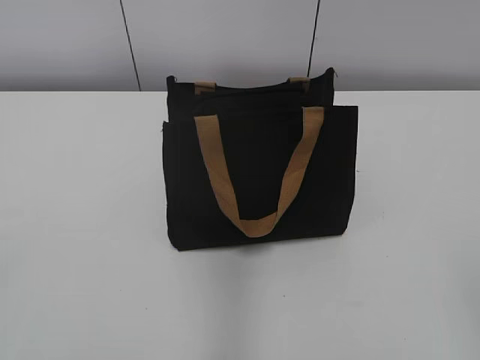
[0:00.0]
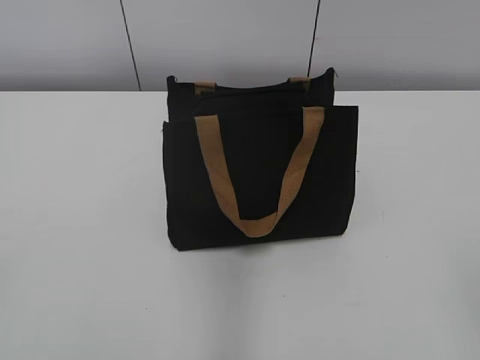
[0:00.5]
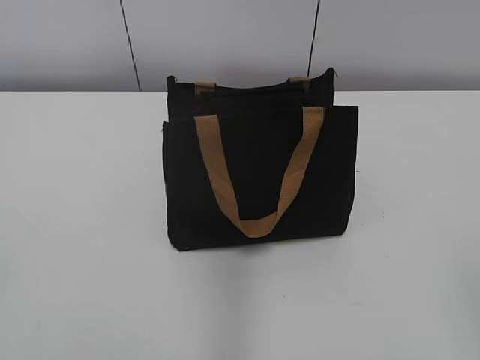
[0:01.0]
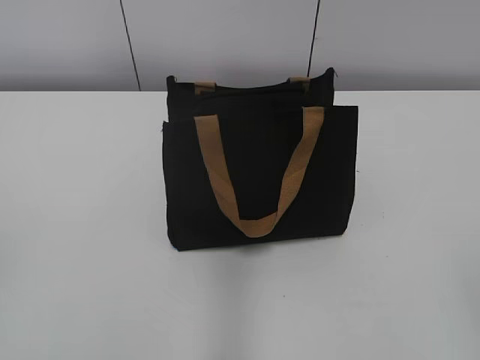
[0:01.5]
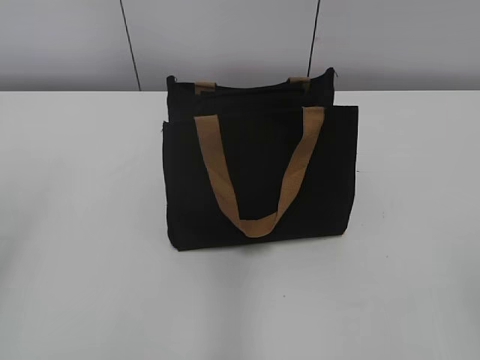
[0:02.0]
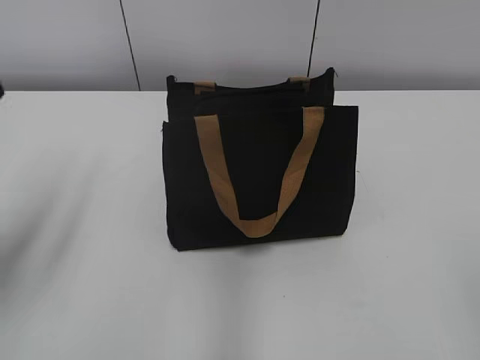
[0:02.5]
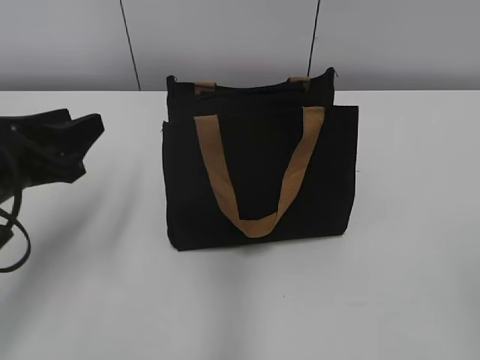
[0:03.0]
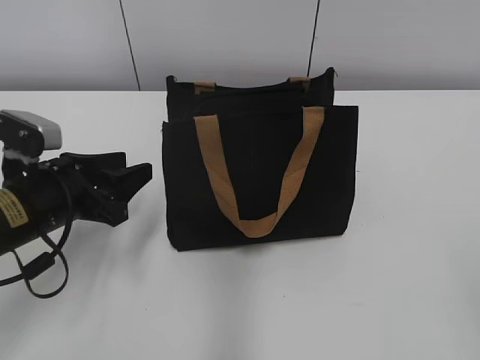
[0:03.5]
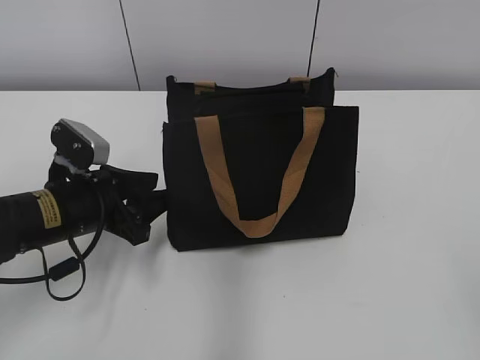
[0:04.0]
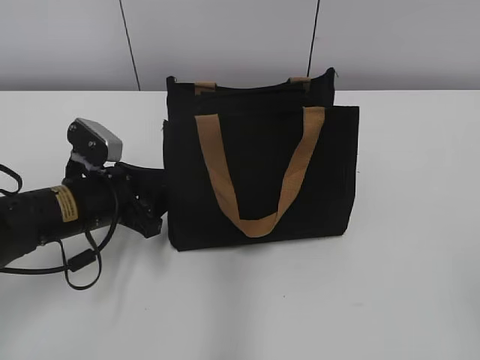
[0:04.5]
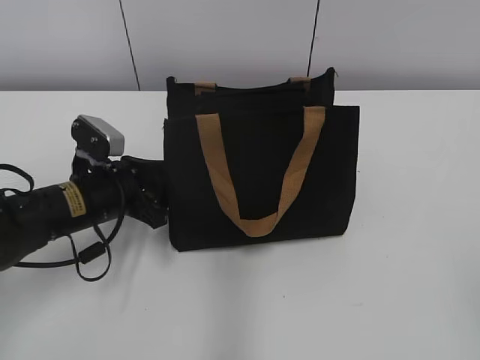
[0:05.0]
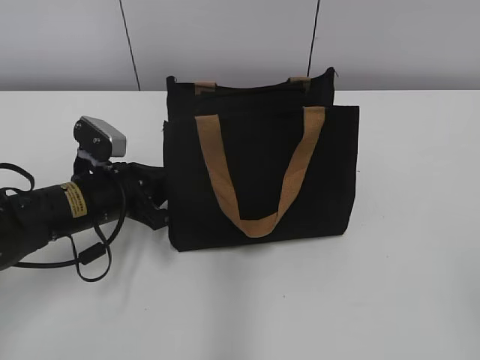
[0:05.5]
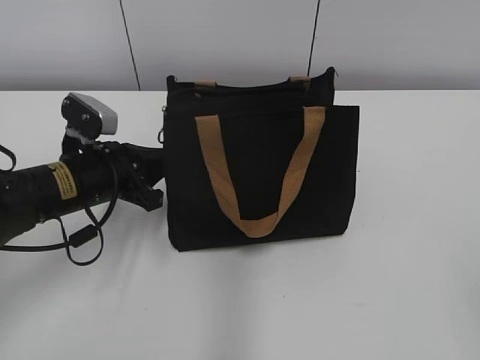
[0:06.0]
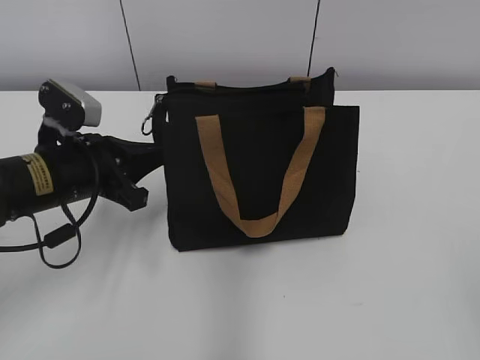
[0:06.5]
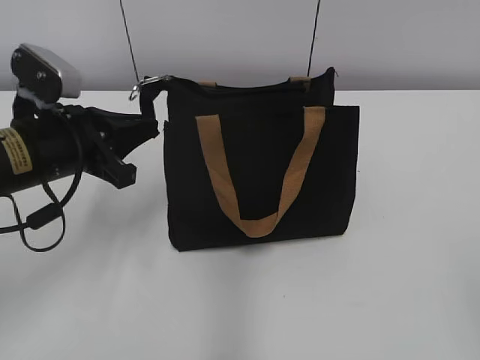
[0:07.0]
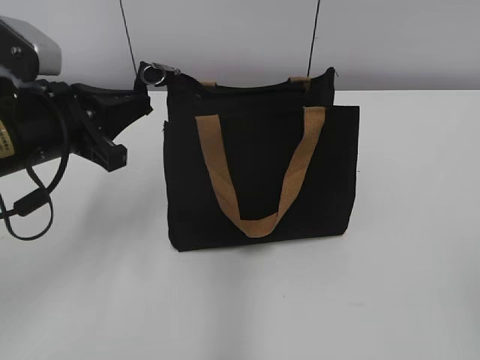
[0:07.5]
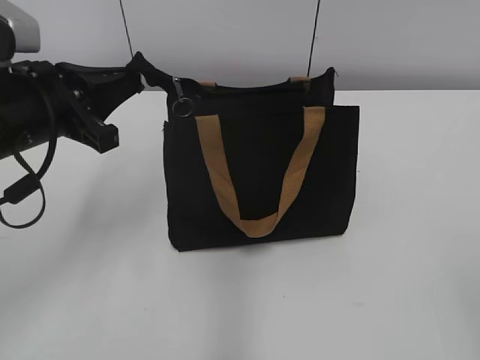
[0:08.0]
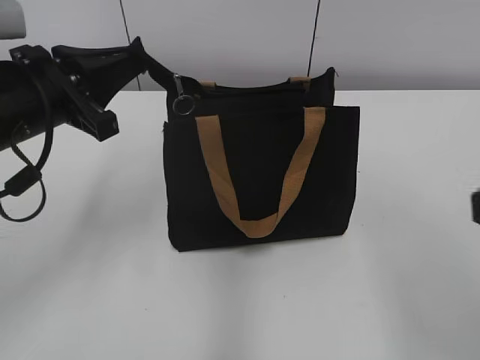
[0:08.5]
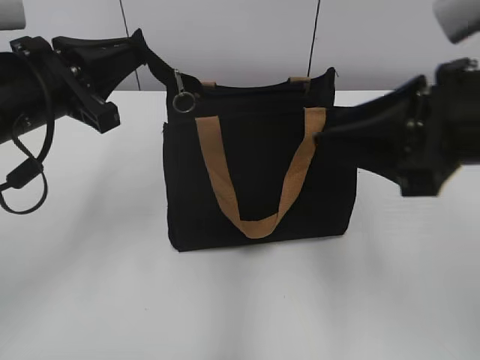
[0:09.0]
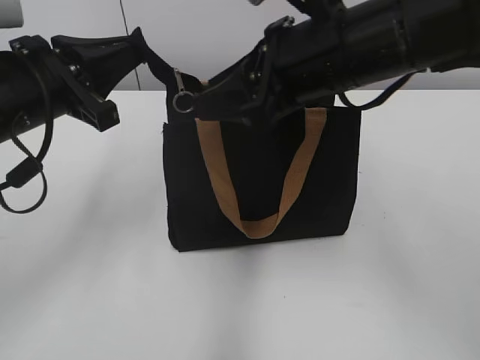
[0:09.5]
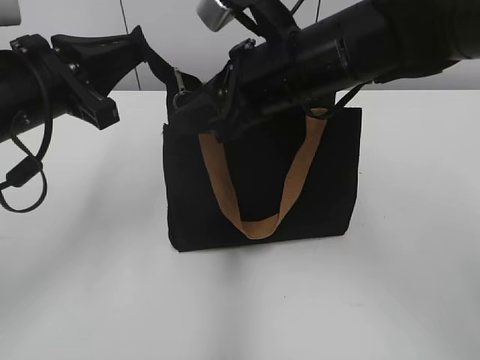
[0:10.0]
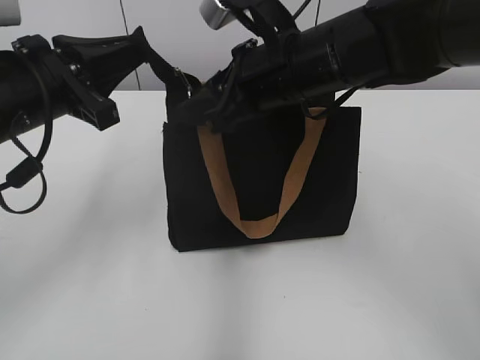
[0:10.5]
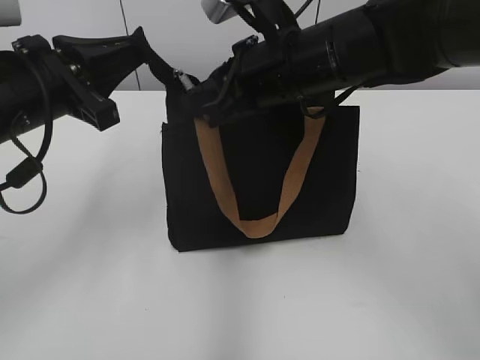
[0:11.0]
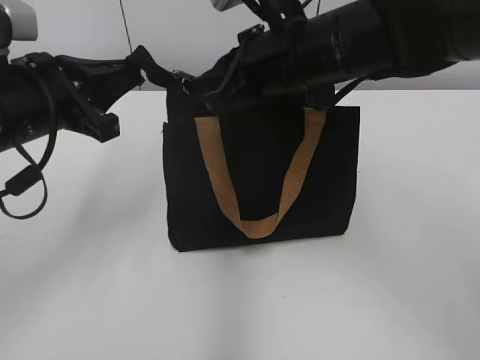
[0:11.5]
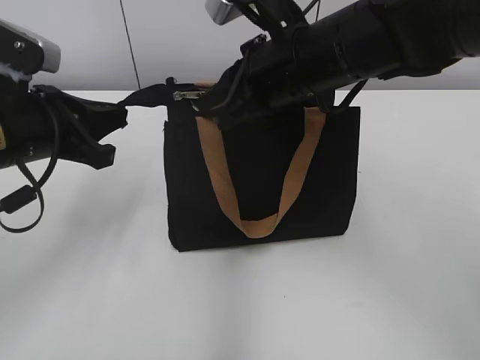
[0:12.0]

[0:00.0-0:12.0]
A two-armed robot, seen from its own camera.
0:02.0 to 0:04.0: The left gripper heads downward, forward and to the right, covering some 30 cm.
0:04.0 to 0:06.0: The left gripper closes up.
0:06.0 to 0:08.0: The left gripper heads upward, covering some 10 cm.
0:08.0 to 0:10.0: The right gripper goes approximately 40 cm forward and to the left.
0:10.0 to 0:12.0: The right gripper closes up.

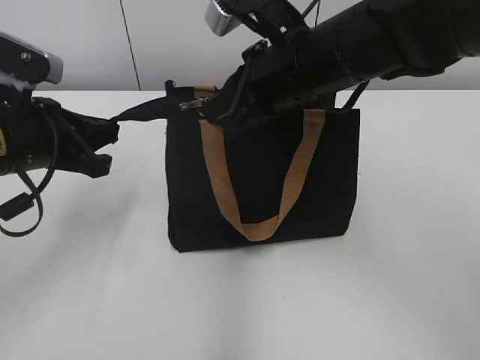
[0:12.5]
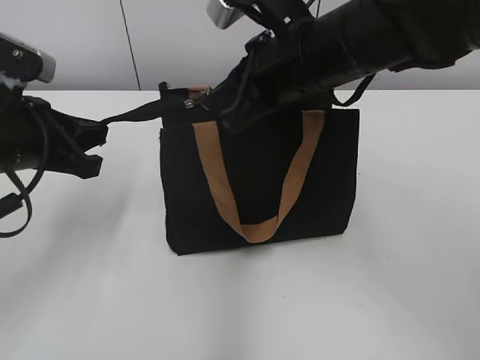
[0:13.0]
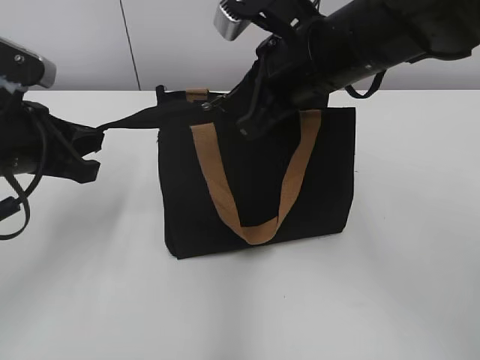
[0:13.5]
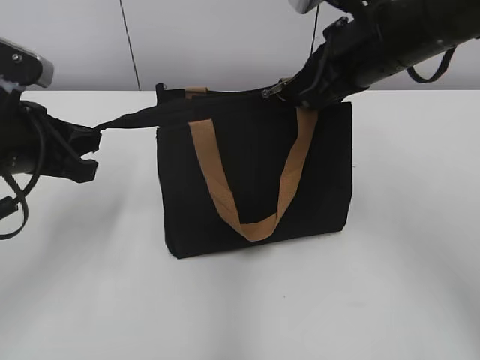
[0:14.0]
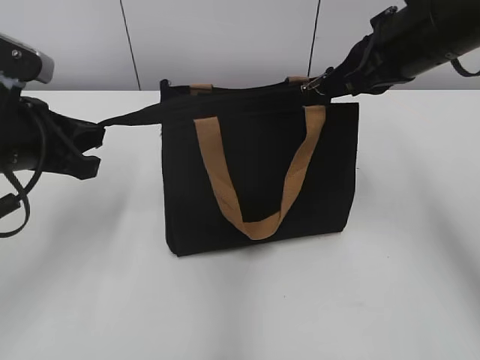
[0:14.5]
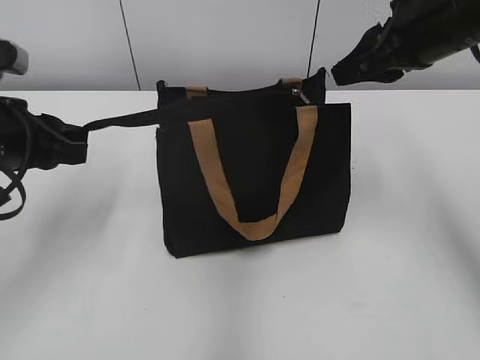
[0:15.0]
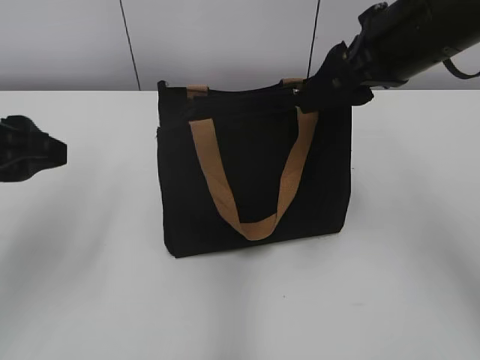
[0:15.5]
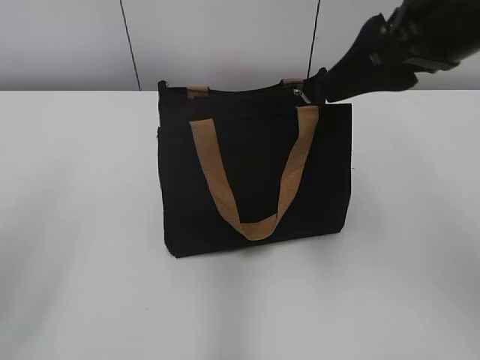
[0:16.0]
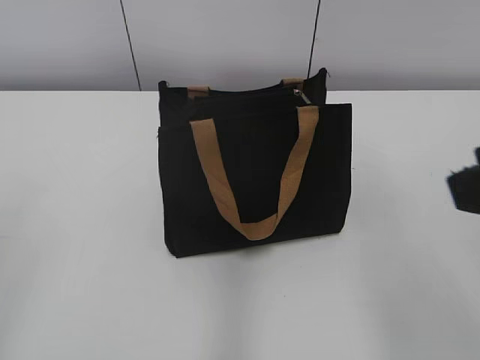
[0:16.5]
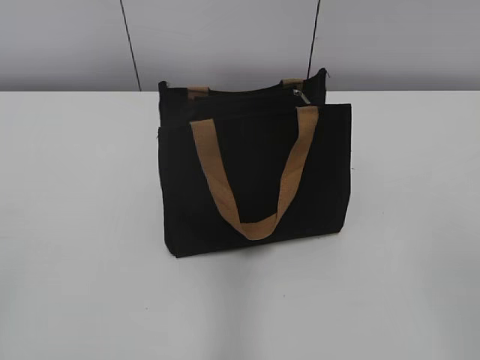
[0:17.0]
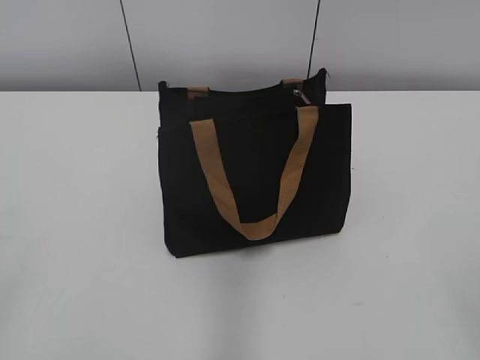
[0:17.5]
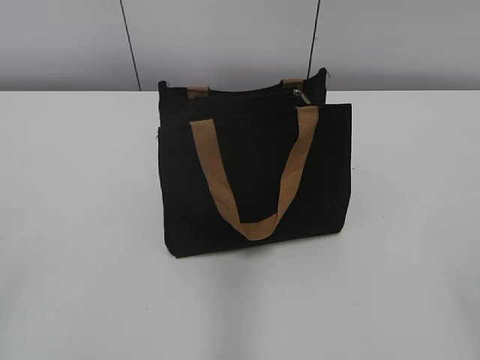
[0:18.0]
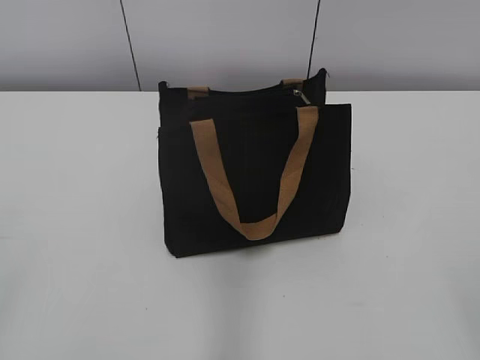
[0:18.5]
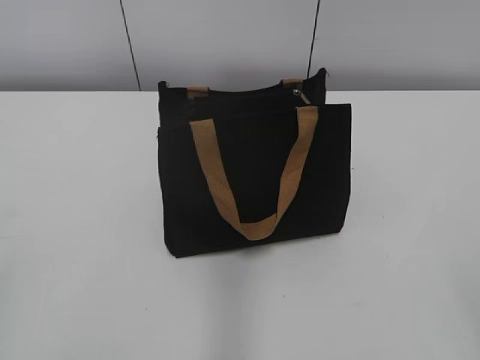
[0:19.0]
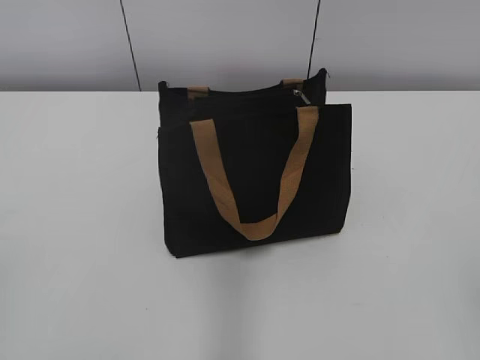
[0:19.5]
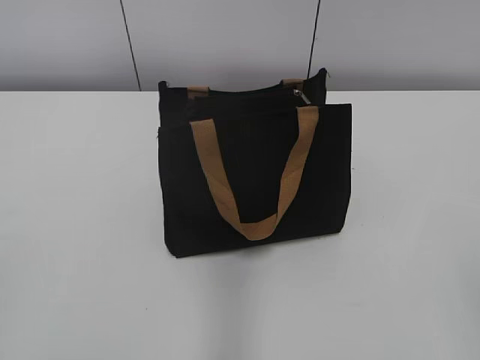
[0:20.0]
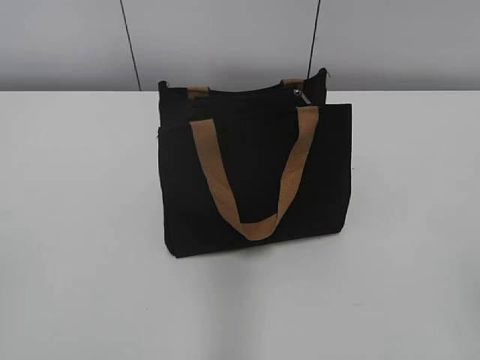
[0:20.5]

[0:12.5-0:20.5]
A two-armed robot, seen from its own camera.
Step, 0:12.5 to 0:14.5: Zip up the bag with your right hand.
0:12.5 to 0:14.5: The right gripper is displaced to the right by about 10 cm.
0:14.5 to 0:16.5: The left gripper goes some 25 cm backward and upward, and opens up; the right gripper heads backward, covering some 20 cm, and opens.
0:16.5 to 0:18.5: The right gripper is displaced backward, to the right and downward by approximately 15 cm.

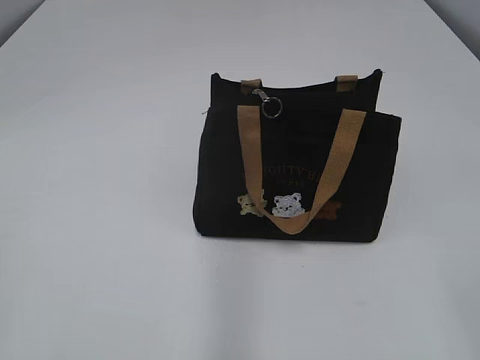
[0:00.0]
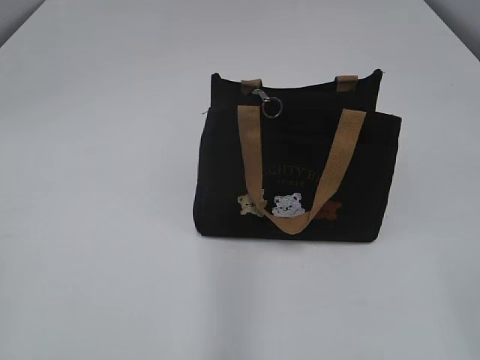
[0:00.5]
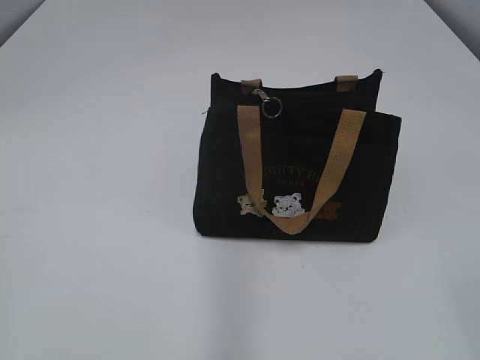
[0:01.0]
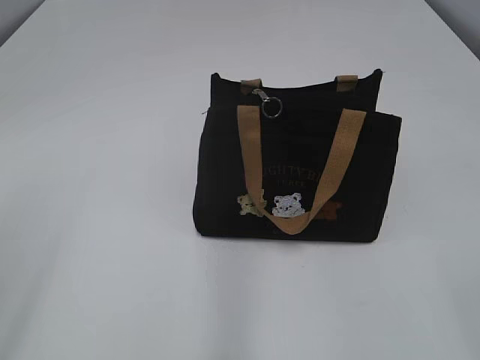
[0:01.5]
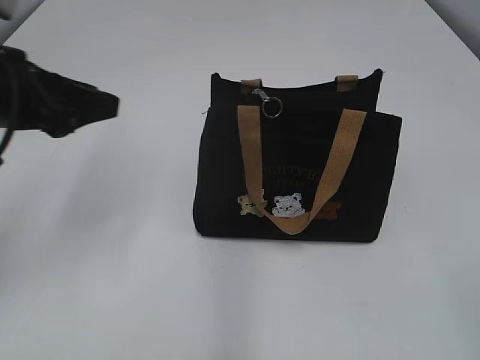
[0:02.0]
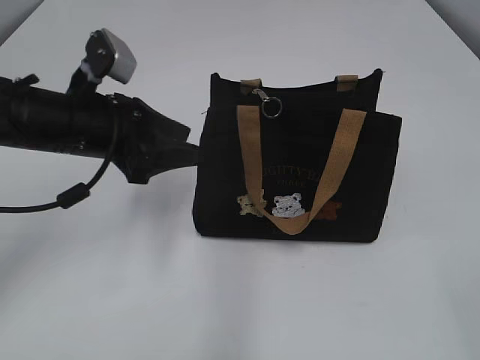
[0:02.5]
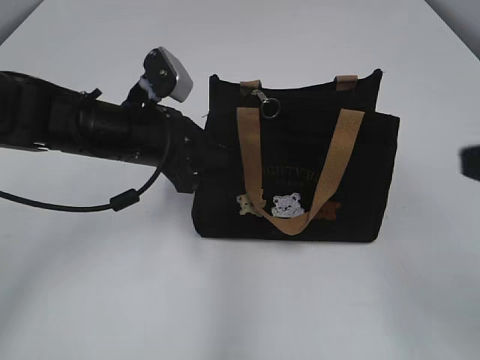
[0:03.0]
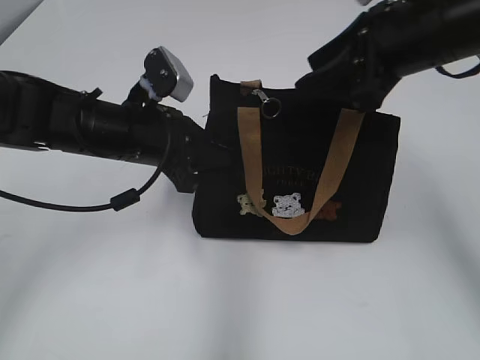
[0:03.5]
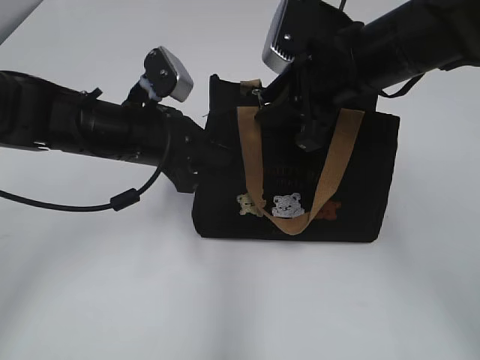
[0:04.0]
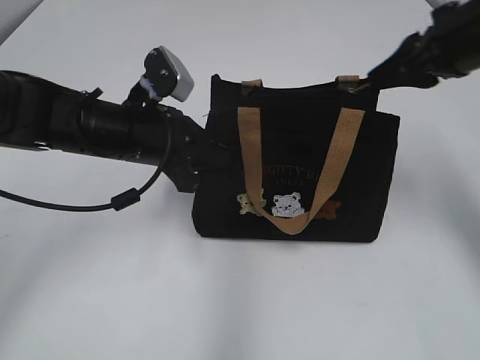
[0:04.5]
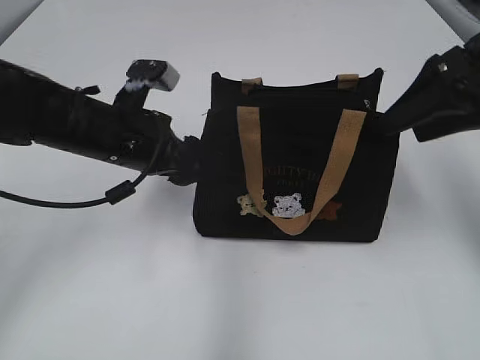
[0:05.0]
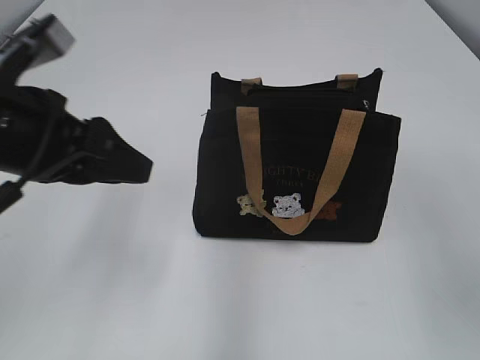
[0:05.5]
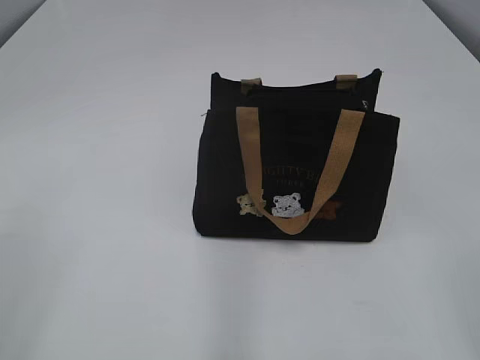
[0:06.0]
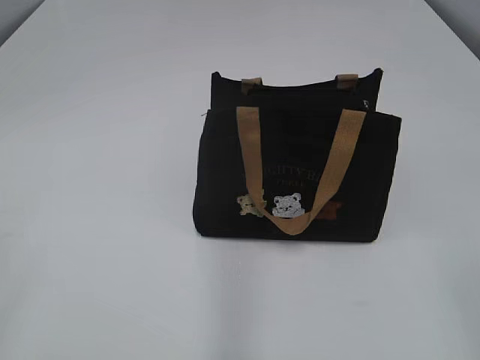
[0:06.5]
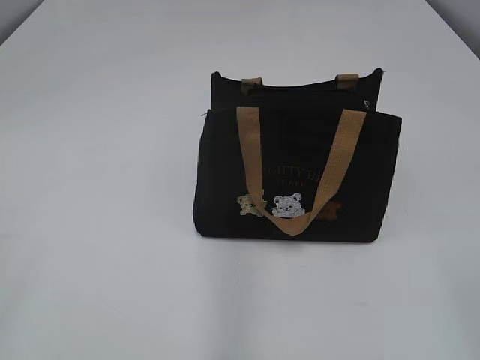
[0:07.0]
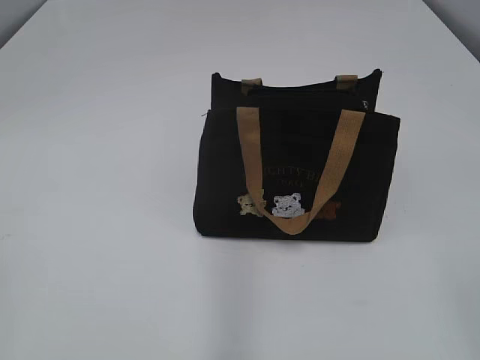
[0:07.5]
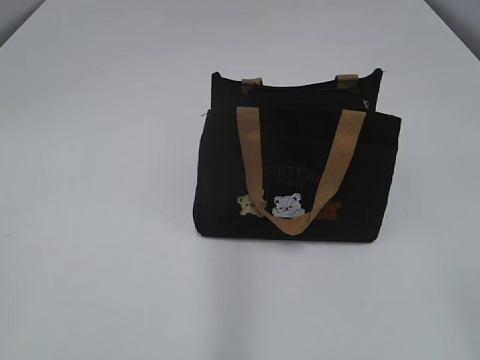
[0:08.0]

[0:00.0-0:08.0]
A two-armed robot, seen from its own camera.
Step, 0:00.0 to 0:04.5: Pull open the zipper with your right hand.
0:02.0 to 0:04.0: The left gripper shifts some 15 cm to the right, downward and forward, and closes up, while the right gripper travels forward and to the left by approximately 35 cm.
0:04.0 to 0:06.0: The left gripper is displaced backward, to the left and upward by some 30 cm, and opens its fingers. The right gripper heads backward and to the right, covering some 30 cm, and opens and closes again.
